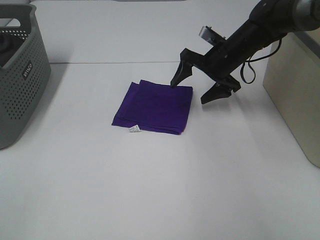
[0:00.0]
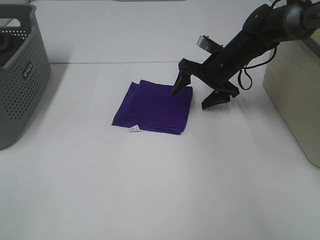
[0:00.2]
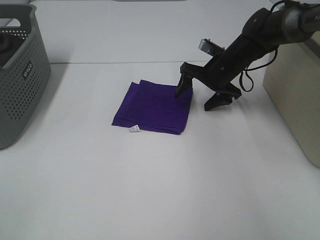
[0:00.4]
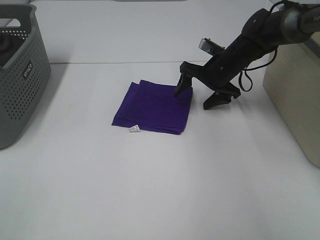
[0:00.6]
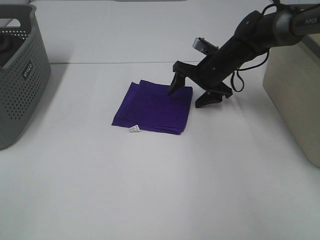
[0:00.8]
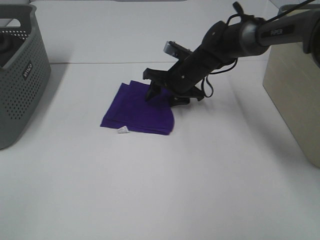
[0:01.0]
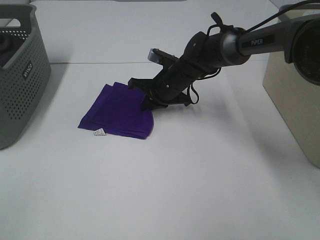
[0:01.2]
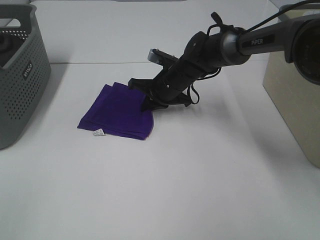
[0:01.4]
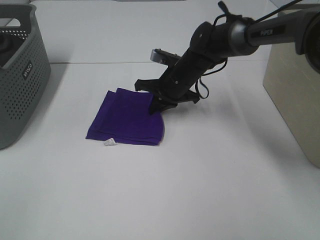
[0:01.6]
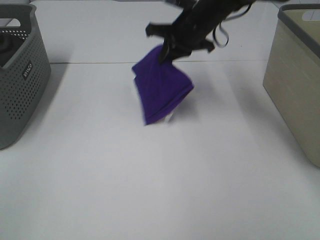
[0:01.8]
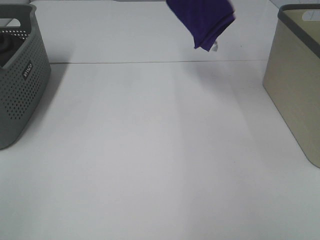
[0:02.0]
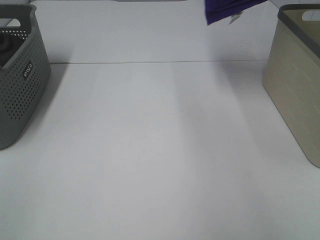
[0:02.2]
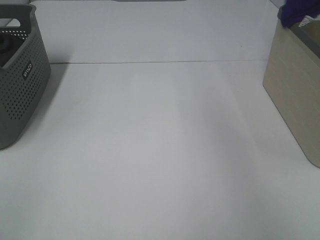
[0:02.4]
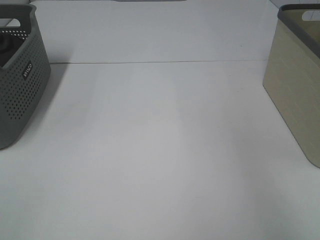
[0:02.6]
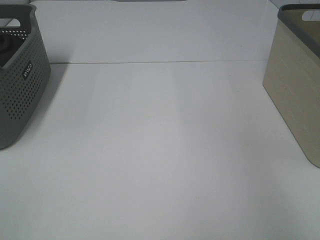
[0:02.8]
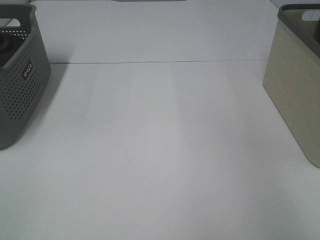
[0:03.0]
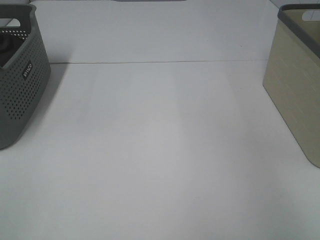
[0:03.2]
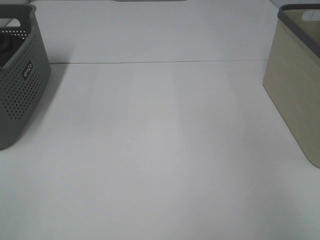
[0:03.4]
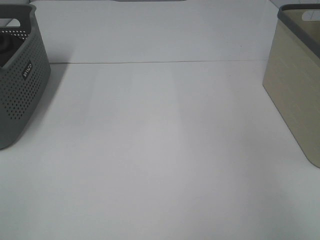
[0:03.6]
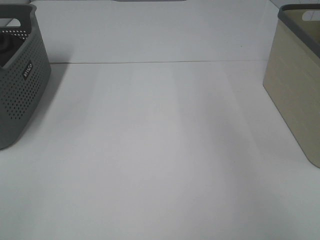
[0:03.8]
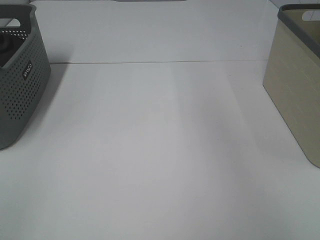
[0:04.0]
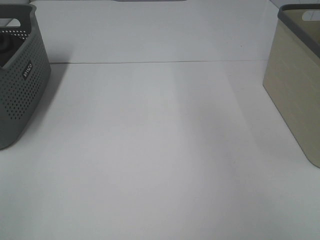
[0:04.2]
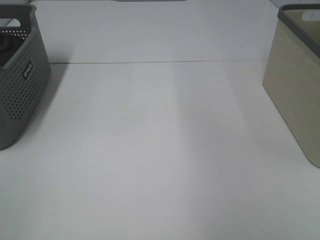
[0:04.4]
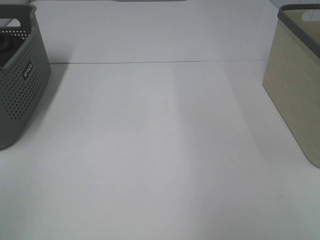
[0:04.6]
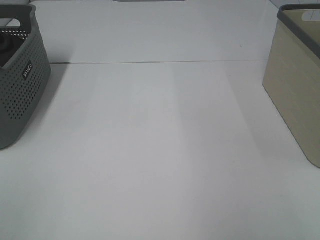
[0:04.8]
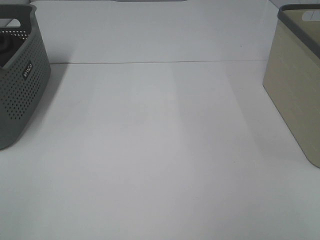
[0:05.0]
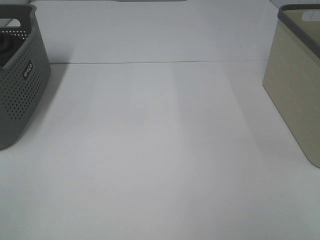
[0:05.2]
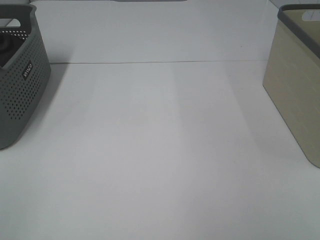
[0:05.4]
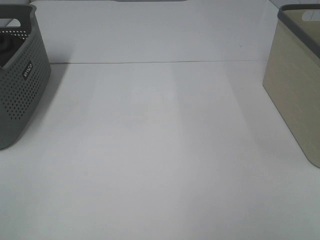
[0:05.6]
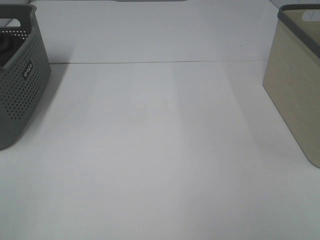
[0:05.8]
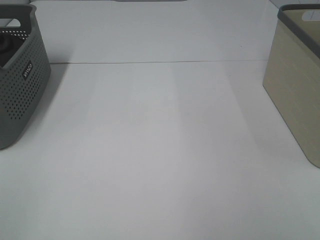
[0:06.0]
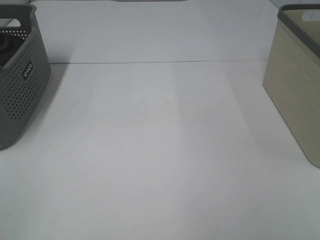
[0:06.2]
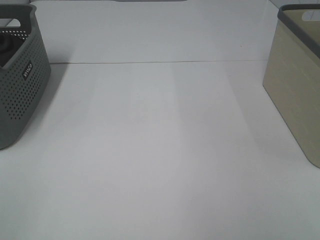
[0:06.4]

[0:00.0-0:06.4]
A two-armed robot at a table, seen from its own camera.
Step, 0:01.2 to 0:03.4: Right hand: place the purple towel in right basket.
0:00.0 to 0:01.6: The right gripper goes approximately 10 cm to the left, and closes its fingers.
0:01.6 to 0:03.2: The right gripper goes some 40 cm to the right and upward, and opens up.

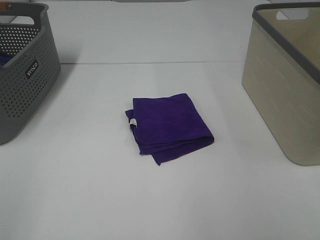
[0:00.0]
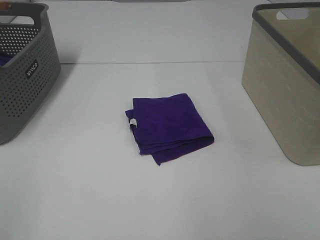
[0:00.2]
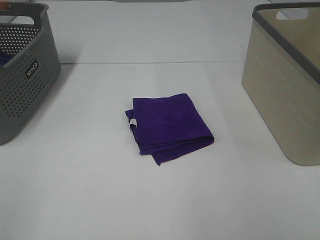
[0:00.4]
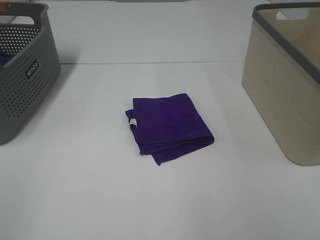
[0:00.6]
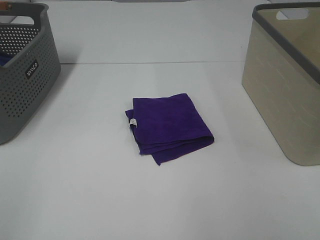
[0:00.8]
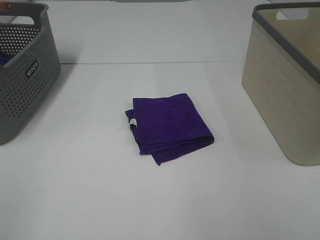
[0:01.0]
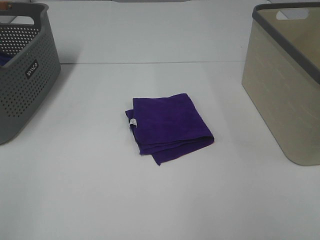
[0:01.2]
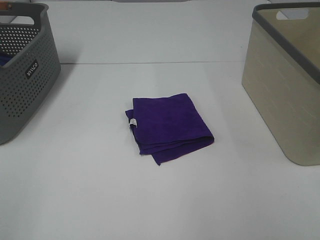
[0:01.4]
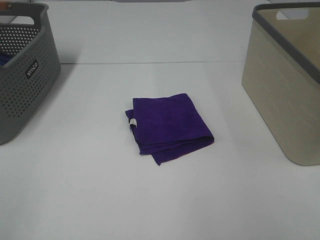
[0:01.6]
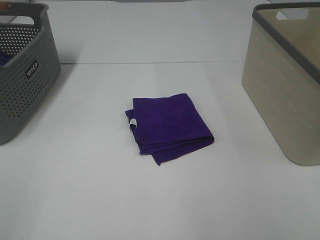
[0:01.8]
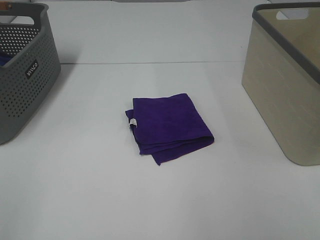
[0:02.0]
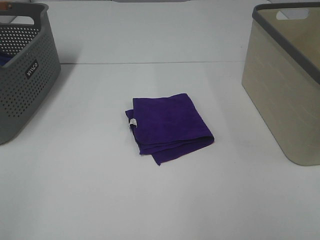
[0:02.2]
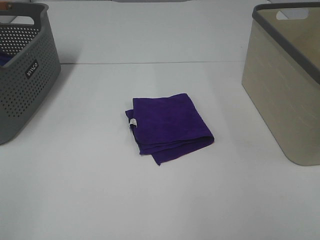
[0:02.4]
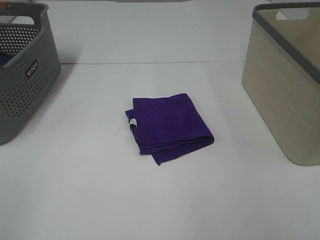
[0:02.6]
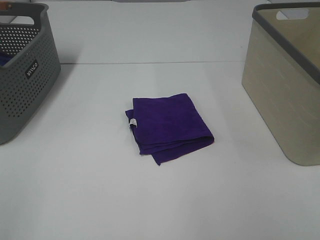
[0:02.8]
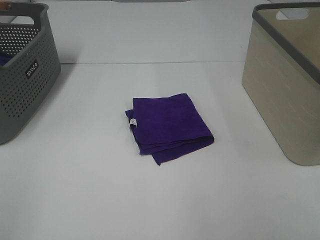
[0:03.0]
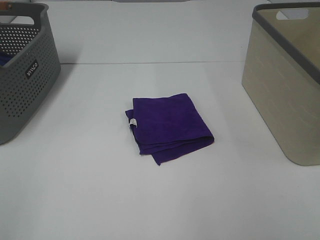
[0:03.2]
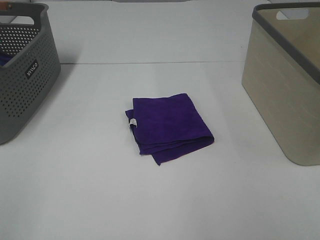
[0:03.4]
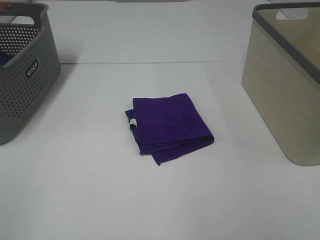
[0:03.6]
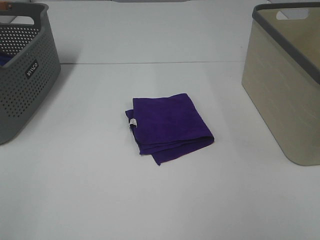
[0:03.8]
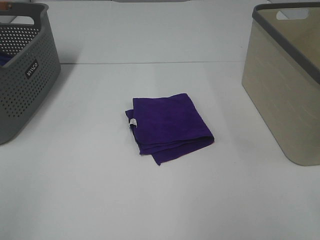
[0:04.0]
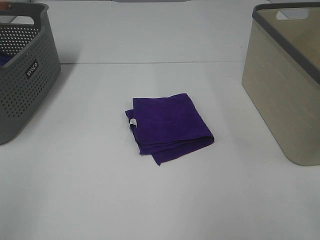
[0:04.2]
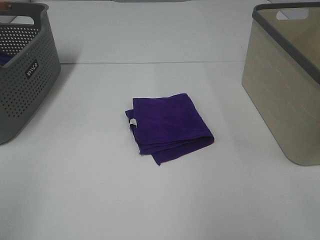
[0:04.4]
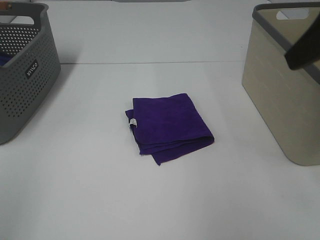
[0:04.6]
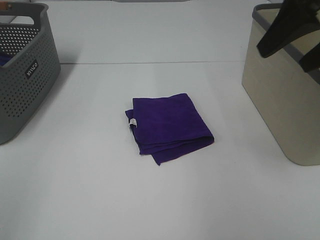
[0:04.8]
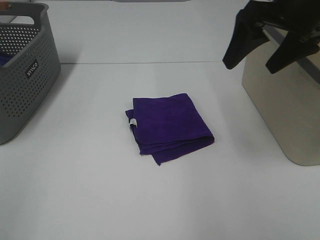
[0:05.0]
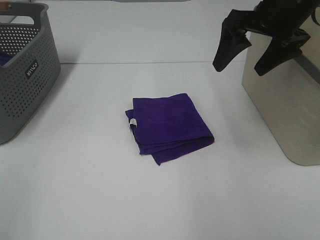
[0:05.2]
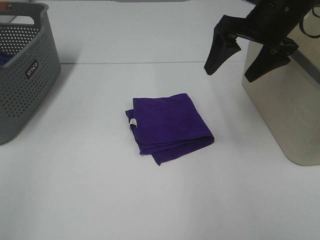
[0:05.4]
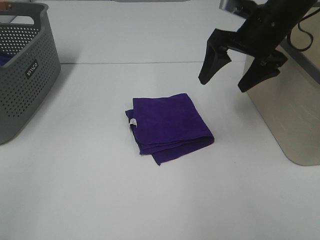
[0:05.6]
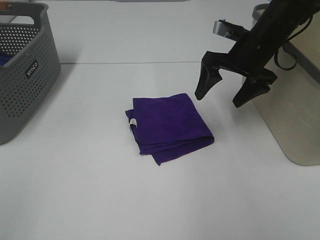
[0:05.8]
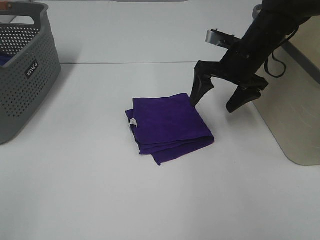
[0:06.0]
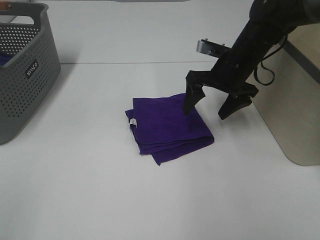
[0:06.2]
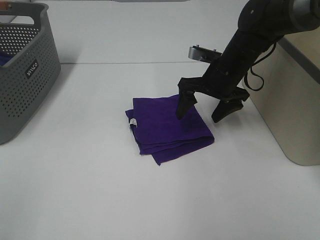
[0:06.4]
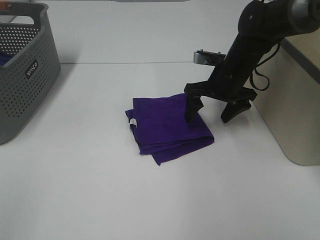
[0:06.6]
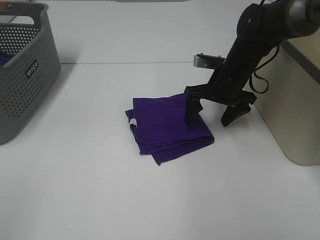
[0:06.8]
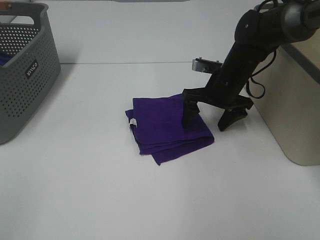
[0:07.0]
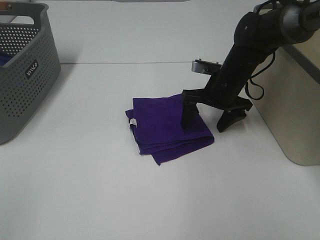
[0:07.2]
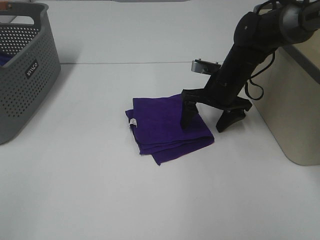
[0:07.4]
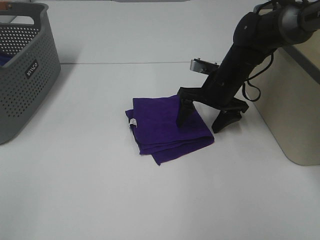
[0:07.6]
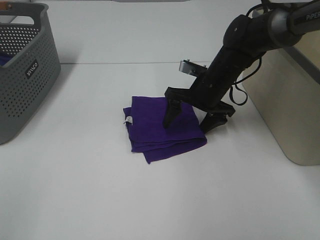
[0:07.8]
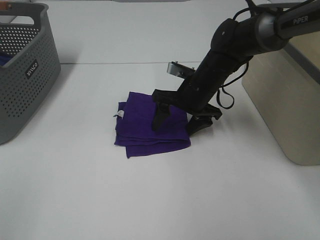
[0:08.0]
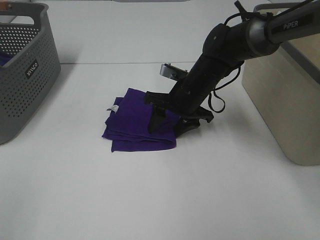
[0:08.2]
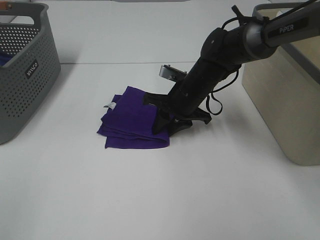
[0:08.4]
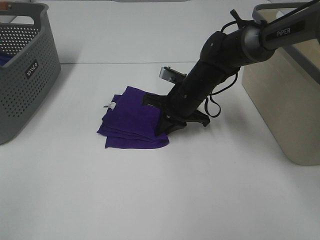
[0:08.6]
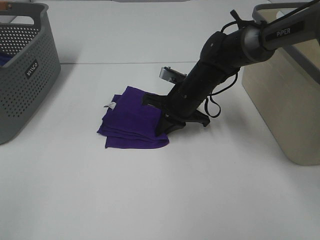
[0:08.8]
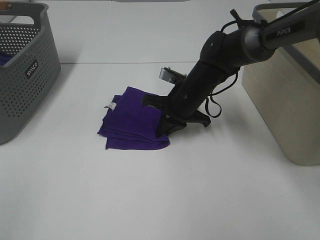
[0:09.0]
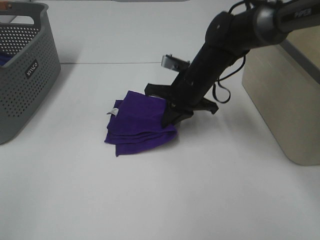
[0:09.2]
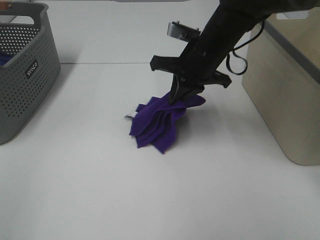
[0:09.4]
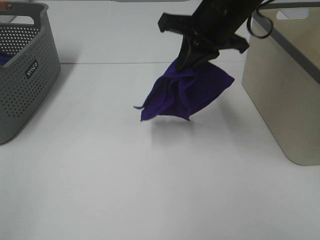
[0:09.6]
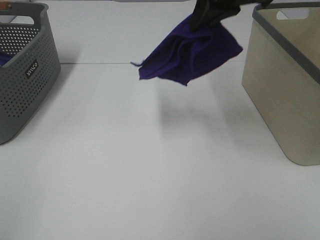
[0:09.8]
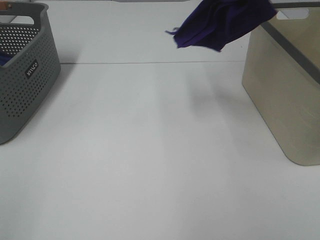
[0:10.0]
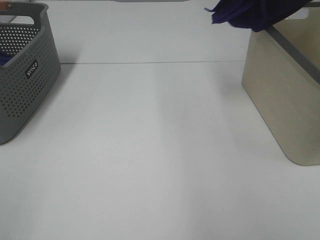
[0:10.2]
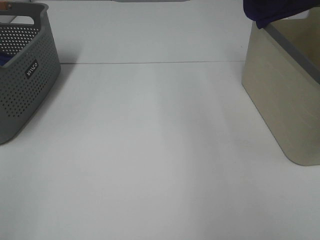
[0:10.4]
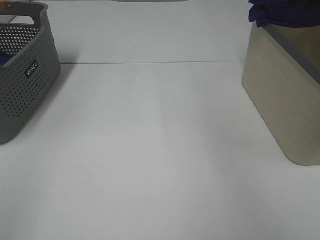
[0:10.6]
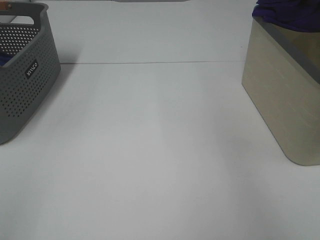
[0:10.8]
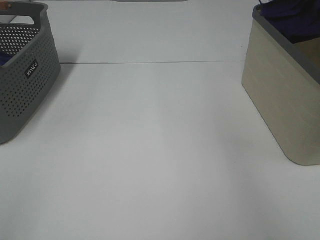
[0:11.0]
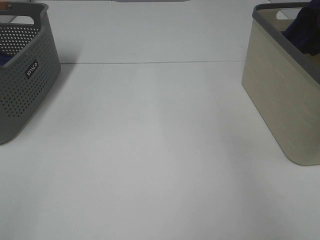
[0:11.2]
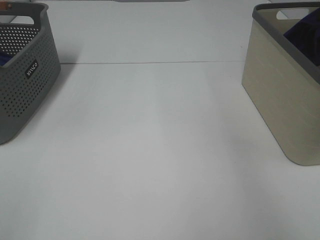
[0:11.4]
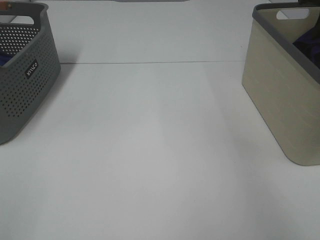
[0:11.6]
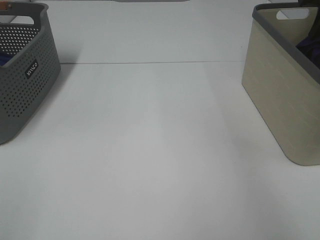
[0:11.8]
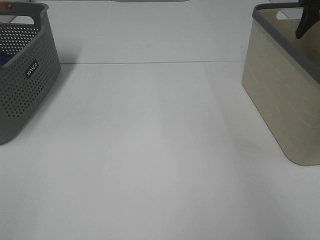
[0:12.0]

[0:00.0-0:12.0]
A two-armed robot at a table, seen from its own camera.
Step, 0:00.0 to 0:08.6: Right hand: grab the folded purple towel.
0:00.0 to 0:03.0: Both grippers stay about where they are.
0:04.4 to 0:06.0: The right gripper travels forward and downward by some 30 cm.
0:06.0 to 0:07.6: The right gripper moves downward, approximately 5 cm.
0:07.6 to 0:09.0: The right gripper travels to the left by some 5 cm, and closes its fingers.
0:09.0 to 0:10.4: The right gripper moves upward and to the right, roughly 40 cm.
0:10.4 to 0:12.0: The right gripper travels downward and to the right by approximately 15 cm, and opens up.

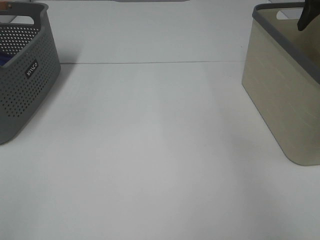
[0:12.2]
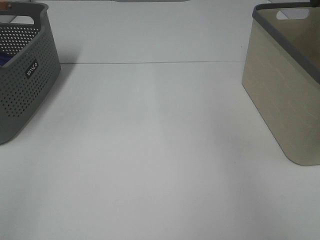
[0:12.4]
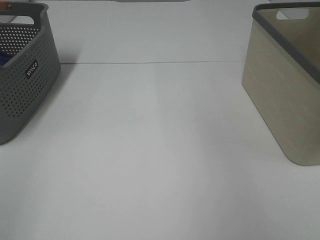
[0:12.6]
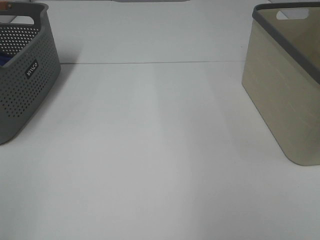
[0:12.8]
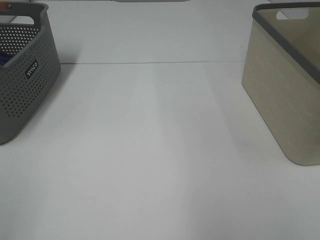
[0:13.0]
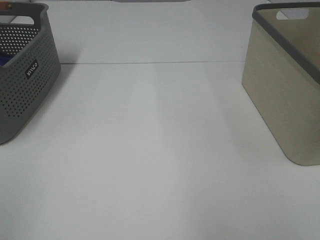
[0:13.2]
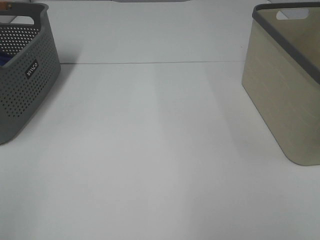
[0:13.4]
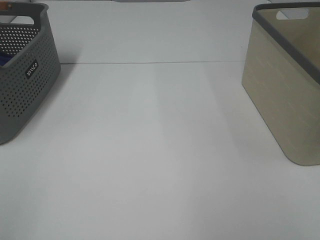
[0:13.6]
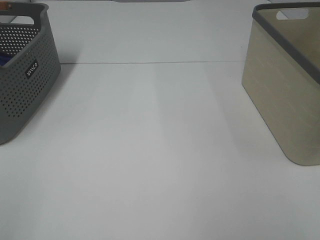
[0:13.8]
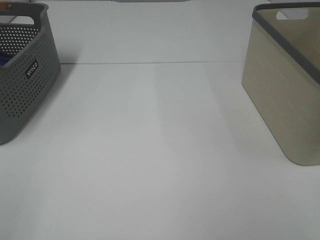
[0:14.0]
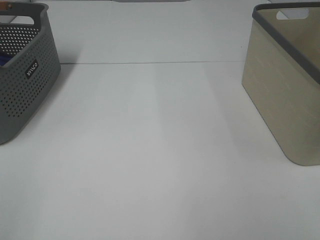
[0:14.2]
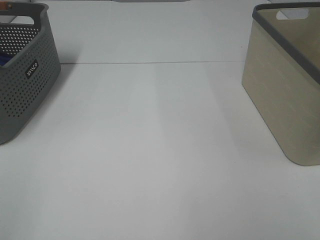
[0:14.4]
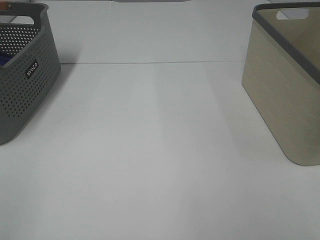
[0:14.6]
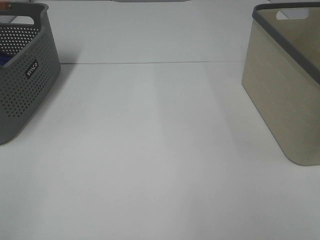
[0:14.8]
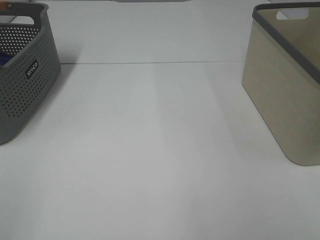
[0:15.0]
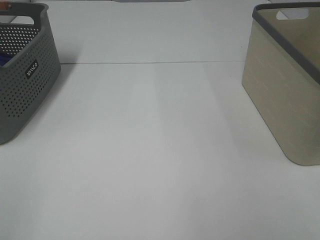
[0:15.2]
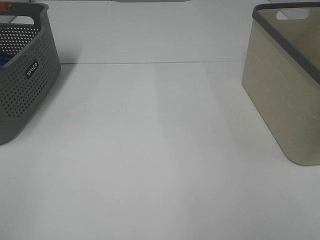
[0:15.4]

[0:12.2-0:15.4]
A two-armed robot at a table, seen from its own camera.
0:12.2 to 0:13.8: The right gripper goes roughly 50 cm backward.

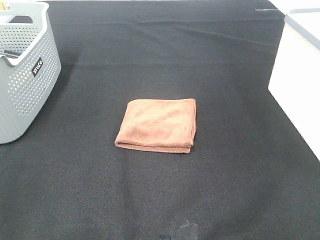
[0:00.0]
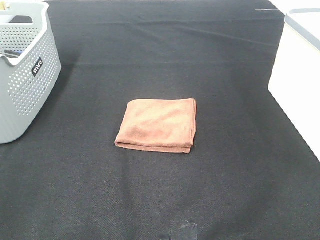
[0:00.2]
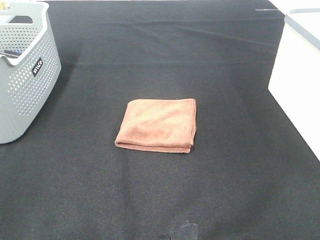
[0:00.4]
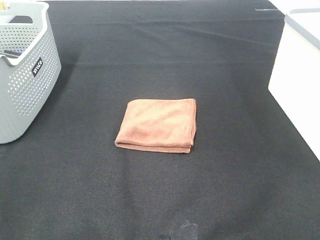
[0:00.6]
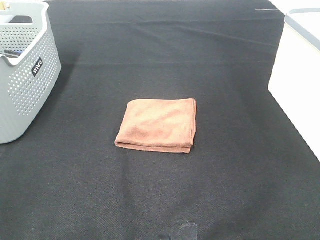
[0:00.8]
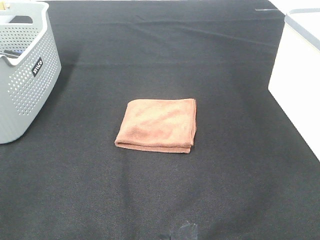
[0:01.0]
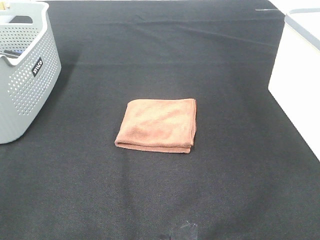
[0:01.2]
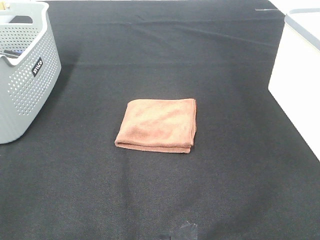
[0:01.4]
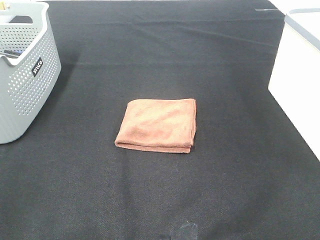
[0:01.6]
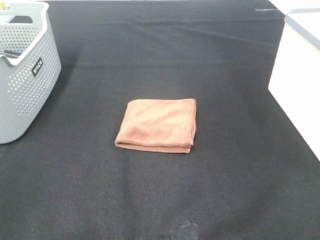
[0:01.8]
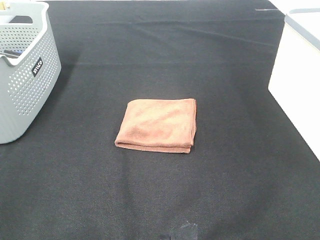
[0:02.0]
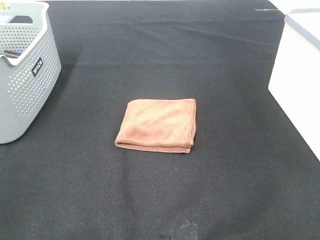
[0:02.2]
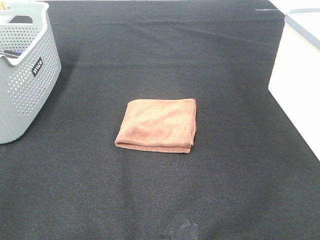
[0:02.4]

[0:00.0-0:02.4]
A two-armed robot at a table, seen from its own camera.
0:00.0 to 0:02.4: Both grippers stay put.
